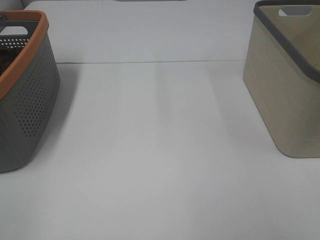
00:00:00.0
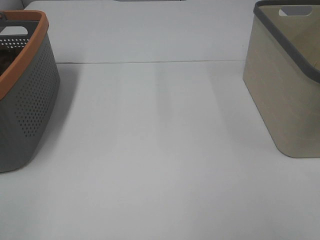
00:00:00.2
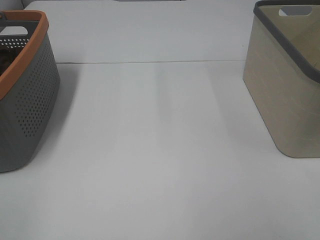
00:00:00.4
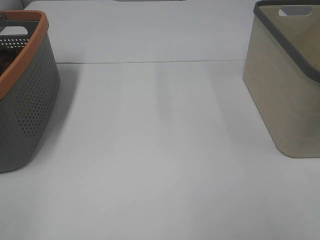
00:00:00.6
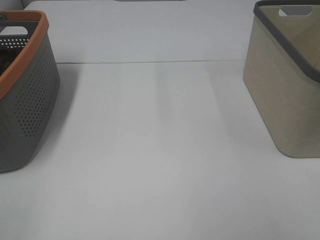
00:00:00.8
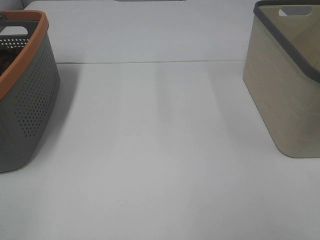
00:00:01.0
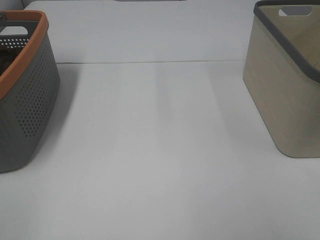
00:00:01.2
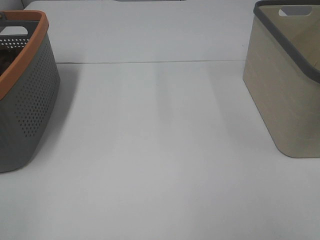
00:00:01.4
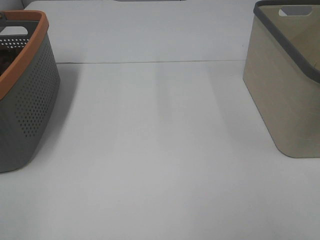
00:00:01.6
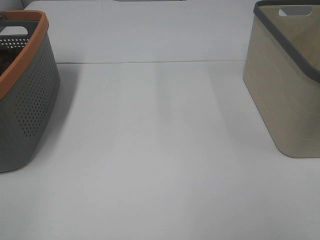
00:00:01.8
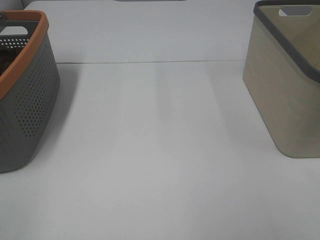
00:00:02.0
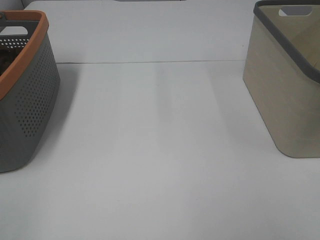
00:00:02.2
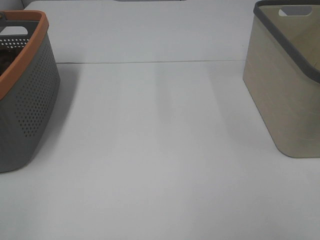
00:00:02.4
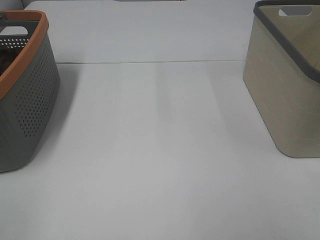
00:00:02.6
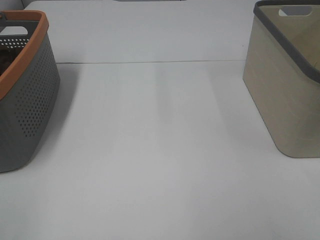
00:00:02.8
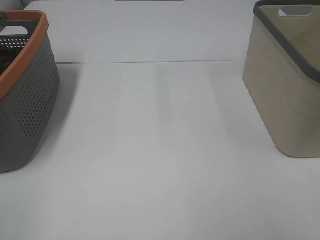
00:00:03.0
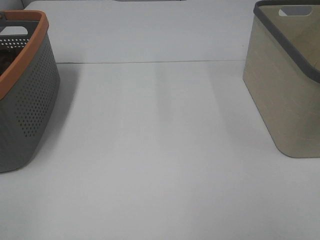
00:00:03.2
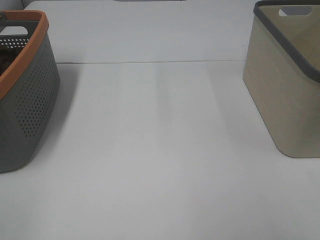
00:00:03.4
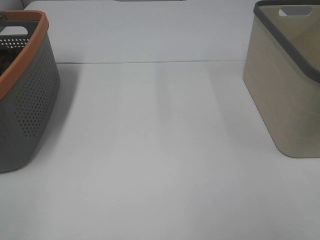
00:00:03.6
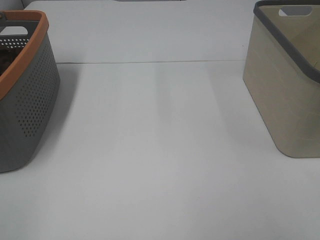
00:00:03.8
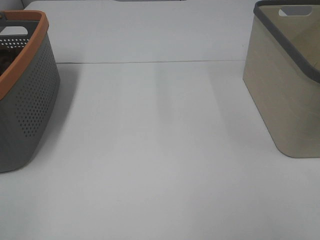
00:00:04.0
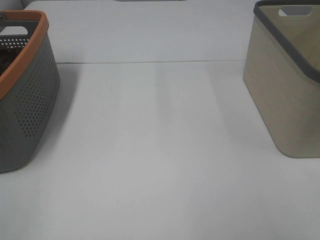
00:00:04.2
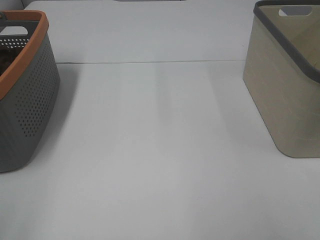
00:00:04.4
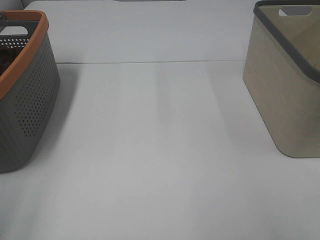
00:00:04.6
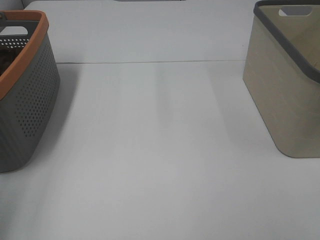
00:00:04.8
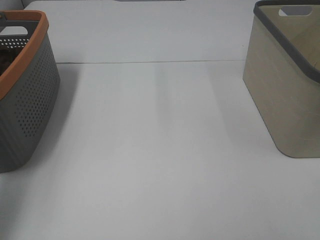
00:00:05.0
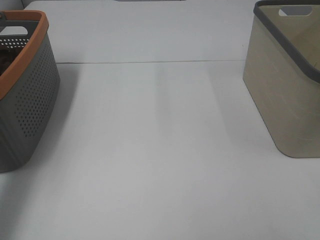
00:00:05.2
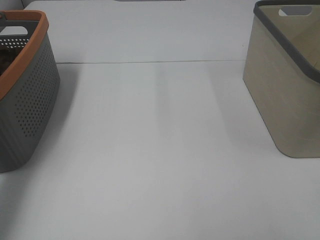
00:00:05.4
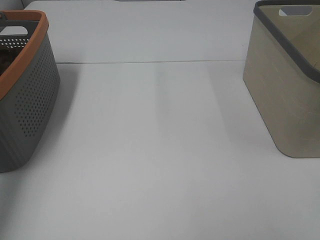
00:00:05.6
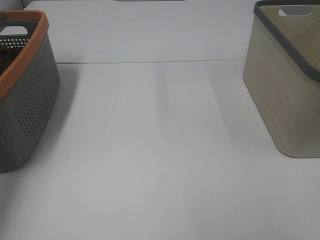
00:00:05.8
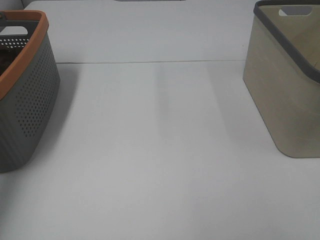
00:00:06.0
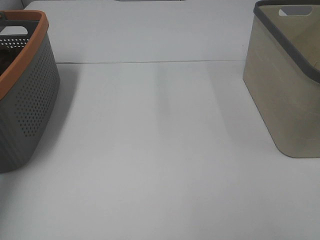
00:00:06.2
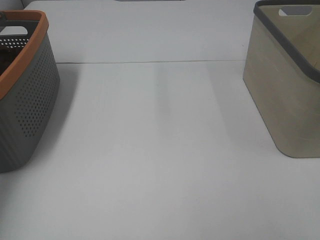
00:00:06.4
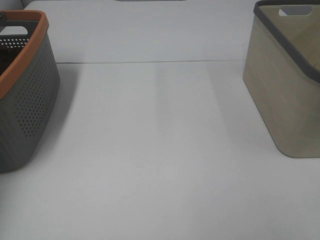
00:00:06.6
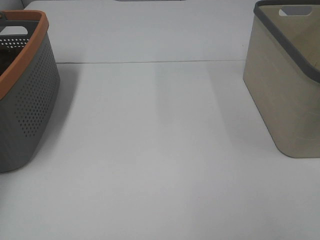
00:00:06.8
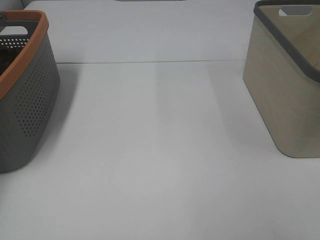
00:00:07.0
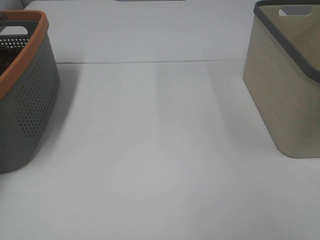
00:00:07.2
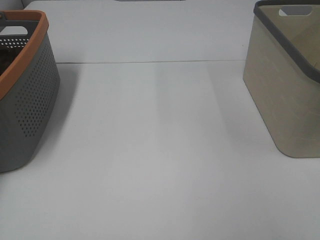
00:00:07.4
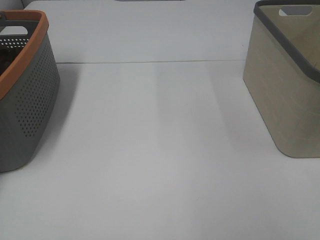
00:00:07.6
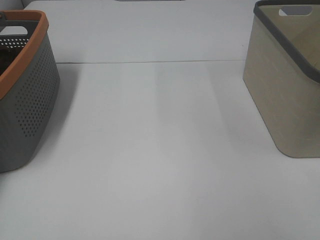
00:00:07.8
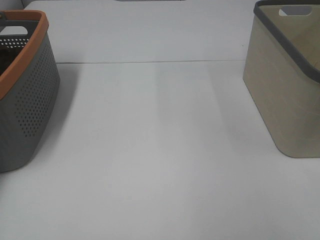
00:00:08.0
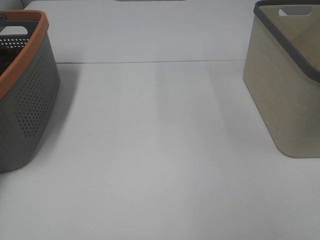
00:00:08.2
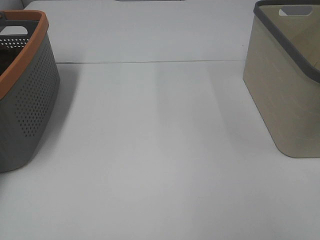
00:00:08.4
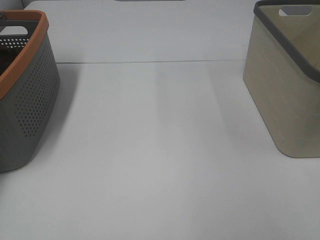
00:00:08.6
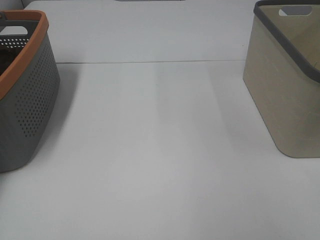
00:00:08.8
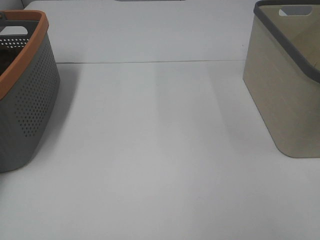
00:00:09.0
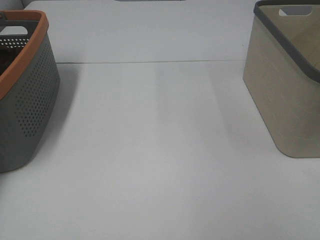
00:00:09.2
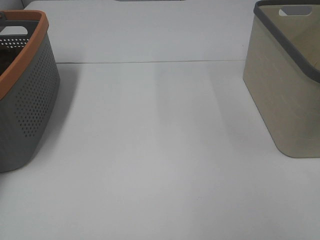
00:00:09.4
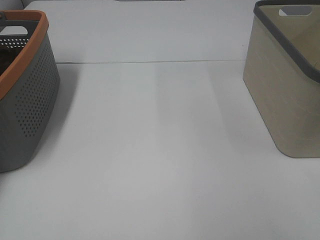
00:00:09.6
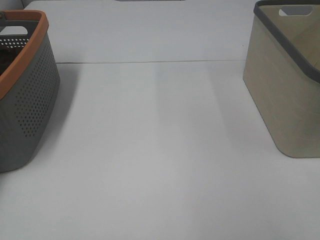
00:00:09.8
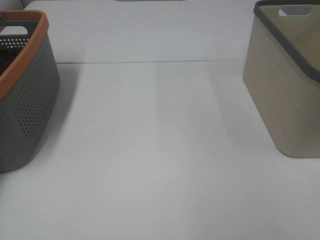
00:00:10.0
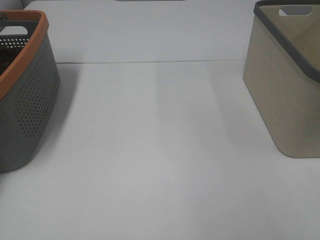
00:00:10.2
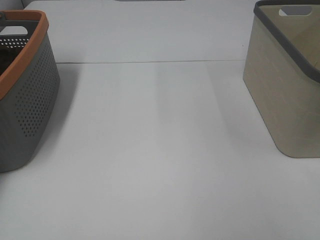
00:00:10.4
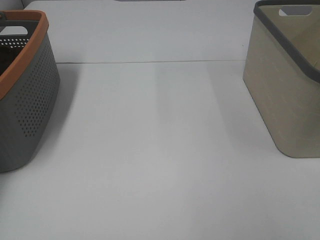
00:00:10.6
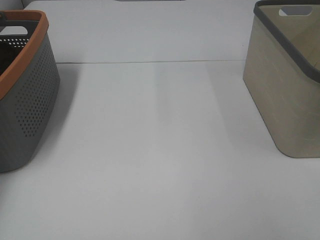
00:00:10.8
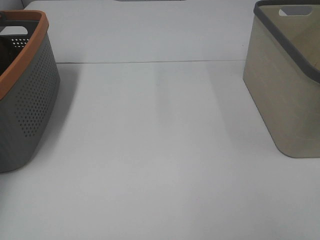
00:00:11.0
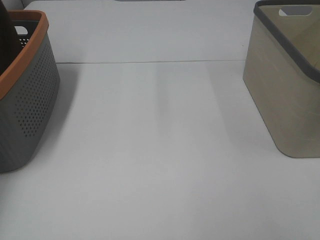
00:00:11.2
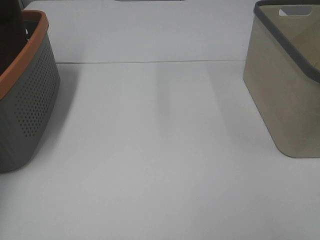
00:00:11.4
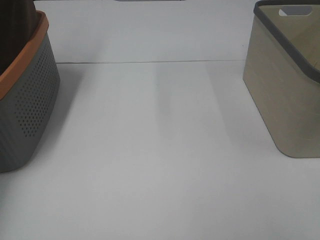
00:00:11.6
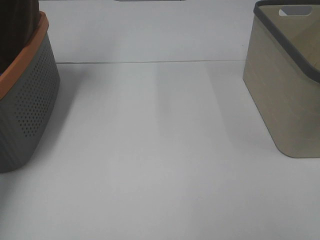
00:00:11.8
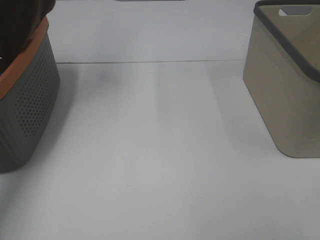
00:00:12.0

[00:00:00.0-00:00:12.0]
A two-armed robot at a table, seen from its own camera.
Task of the whole recording: Remove the towel and place it.
00:00:00.0 to 00:00:03.0: Both grippers stay about where they are.
00:00:04.4 to 00:00:06.0: The left gripper heads forward, covering roughly 30 cm.
00:00:06.0 to 00:00:07.6: The left gripper goes roughly 20 cm downward, forward and to the left.
00:00:10.4 to 00:00:12.0: The left gripper travels upward and to the right by approximately 35 cm.

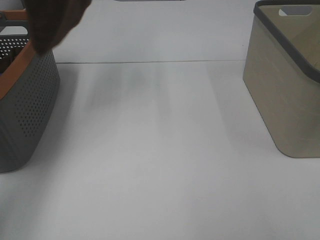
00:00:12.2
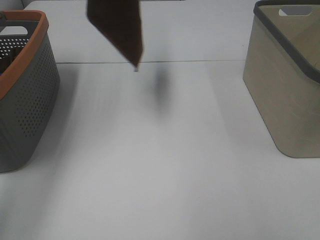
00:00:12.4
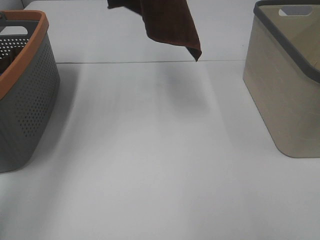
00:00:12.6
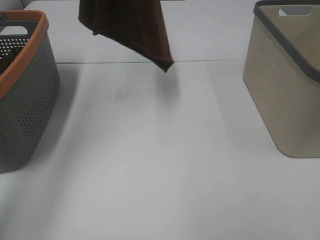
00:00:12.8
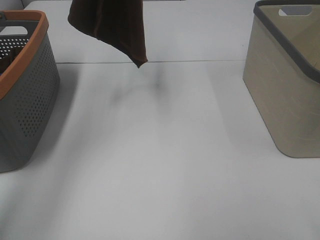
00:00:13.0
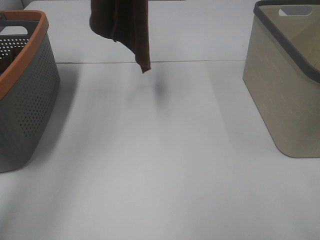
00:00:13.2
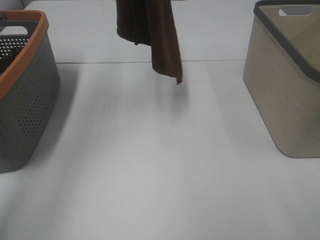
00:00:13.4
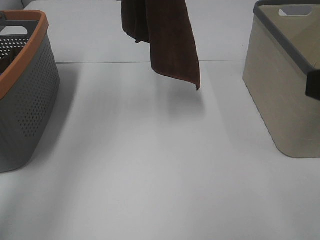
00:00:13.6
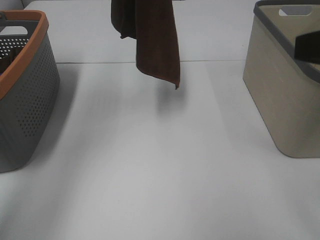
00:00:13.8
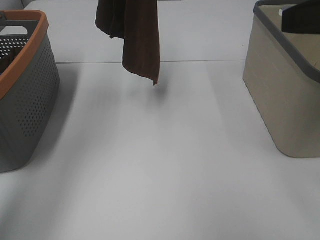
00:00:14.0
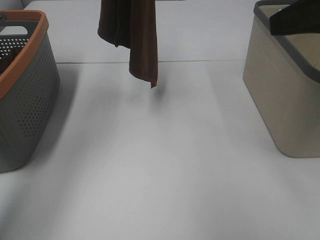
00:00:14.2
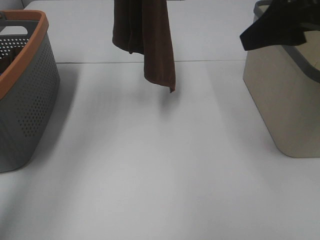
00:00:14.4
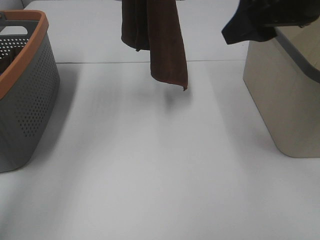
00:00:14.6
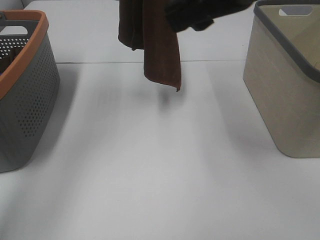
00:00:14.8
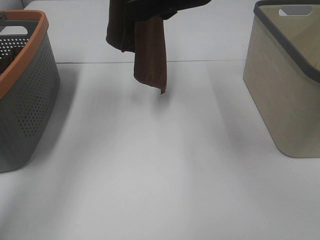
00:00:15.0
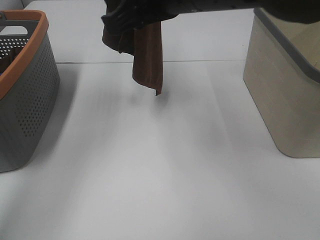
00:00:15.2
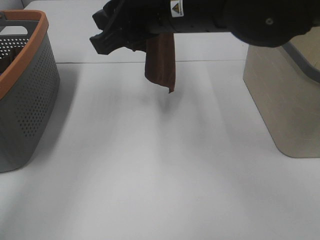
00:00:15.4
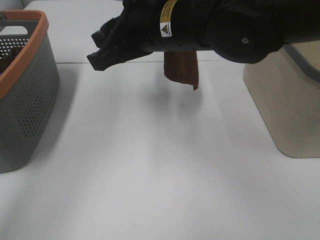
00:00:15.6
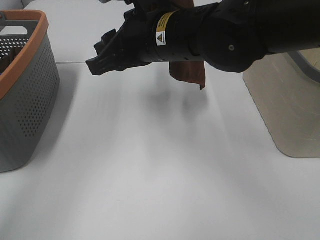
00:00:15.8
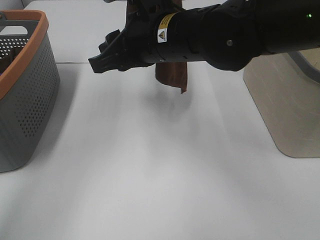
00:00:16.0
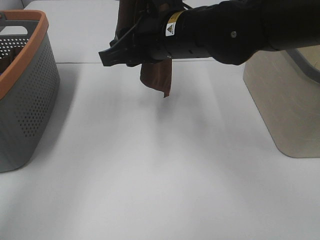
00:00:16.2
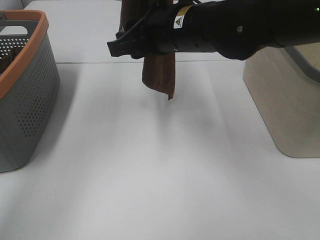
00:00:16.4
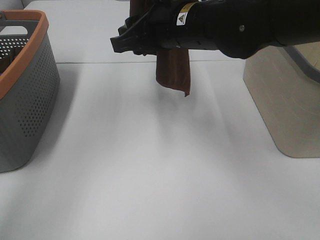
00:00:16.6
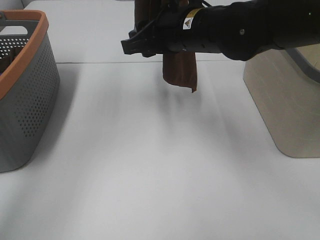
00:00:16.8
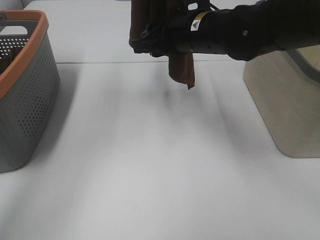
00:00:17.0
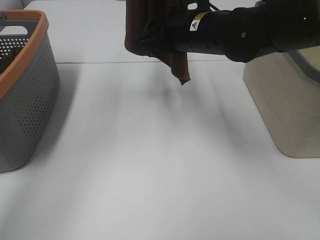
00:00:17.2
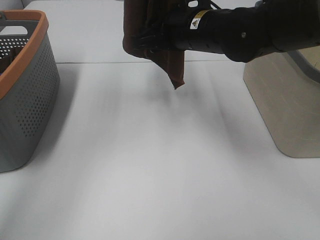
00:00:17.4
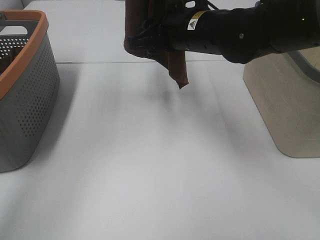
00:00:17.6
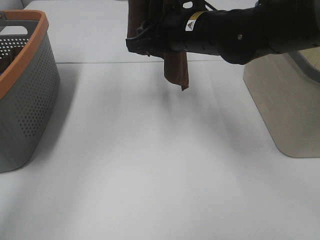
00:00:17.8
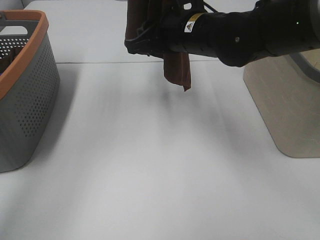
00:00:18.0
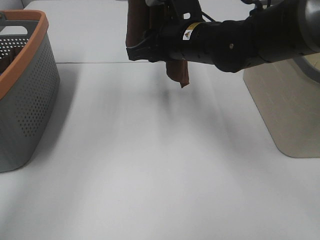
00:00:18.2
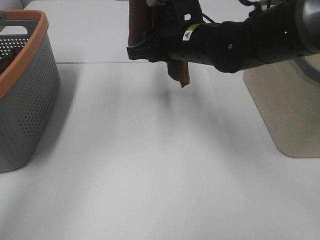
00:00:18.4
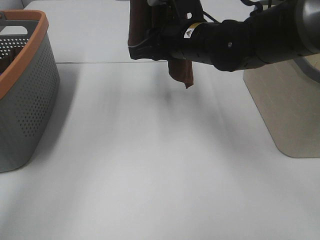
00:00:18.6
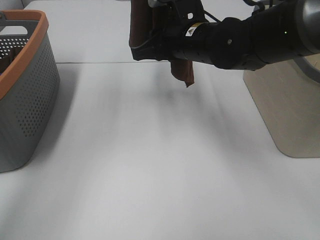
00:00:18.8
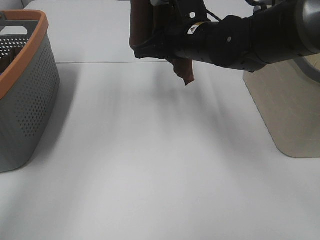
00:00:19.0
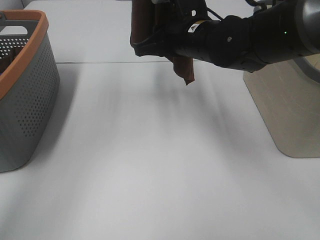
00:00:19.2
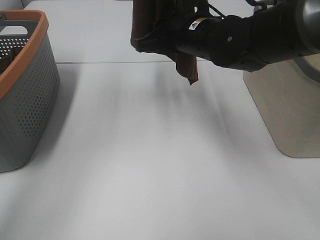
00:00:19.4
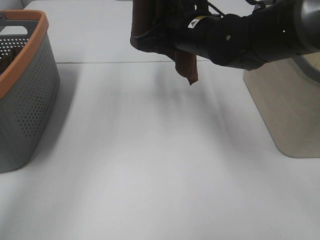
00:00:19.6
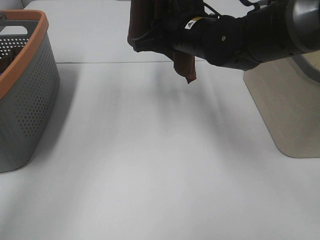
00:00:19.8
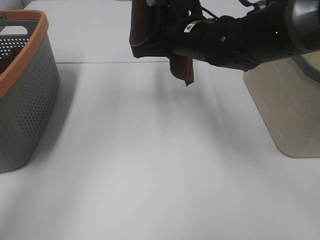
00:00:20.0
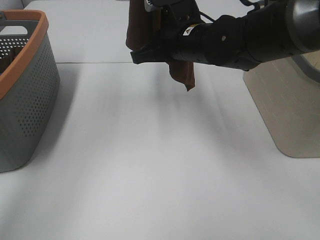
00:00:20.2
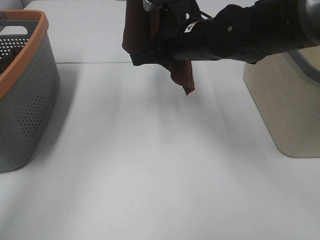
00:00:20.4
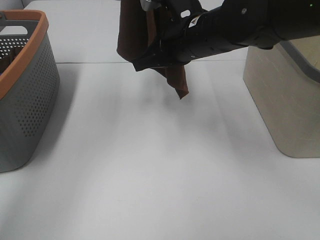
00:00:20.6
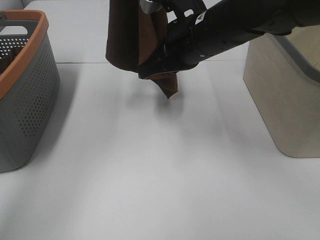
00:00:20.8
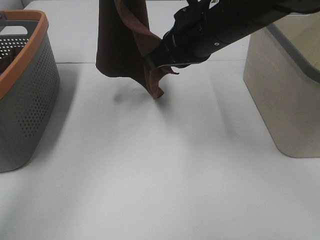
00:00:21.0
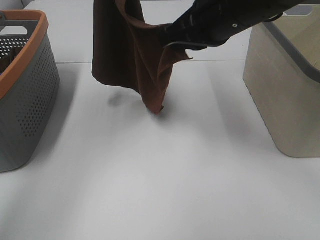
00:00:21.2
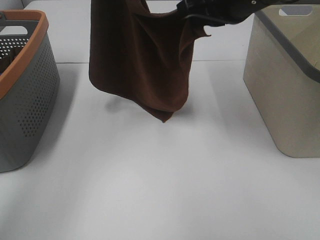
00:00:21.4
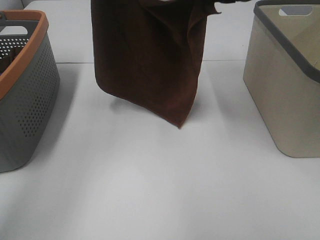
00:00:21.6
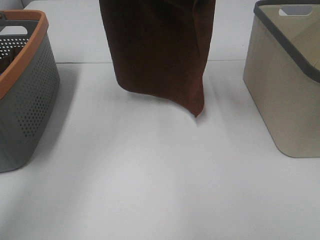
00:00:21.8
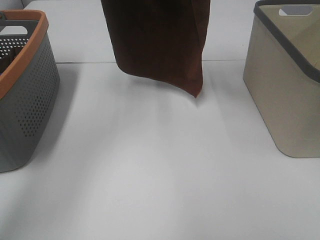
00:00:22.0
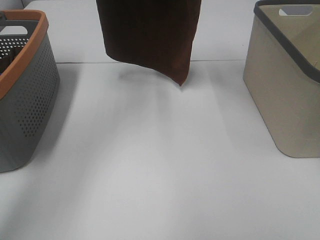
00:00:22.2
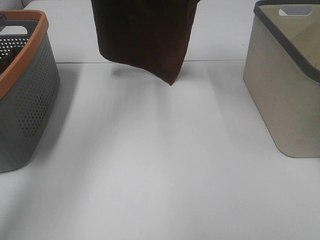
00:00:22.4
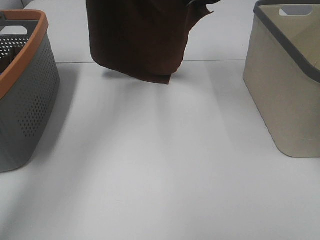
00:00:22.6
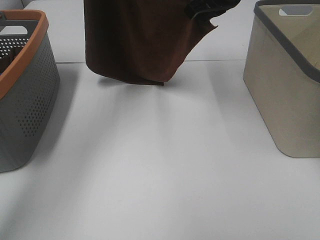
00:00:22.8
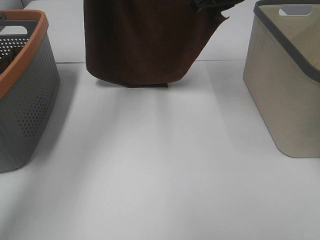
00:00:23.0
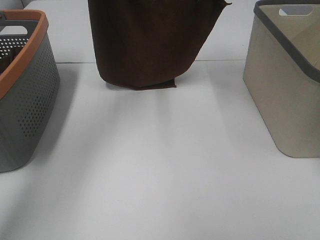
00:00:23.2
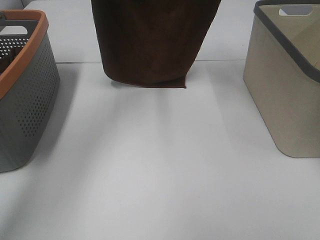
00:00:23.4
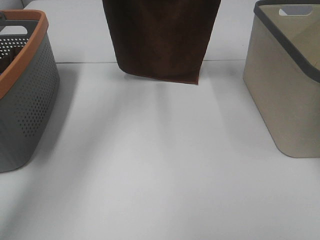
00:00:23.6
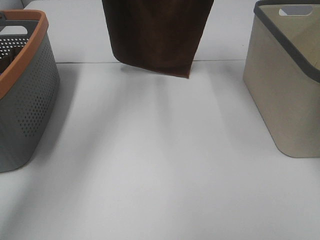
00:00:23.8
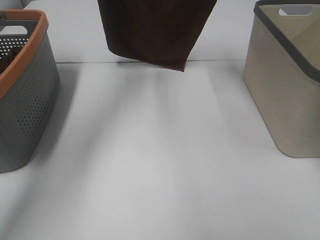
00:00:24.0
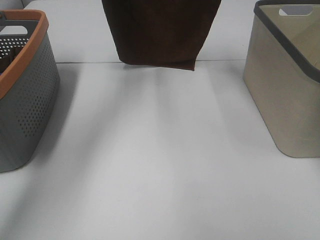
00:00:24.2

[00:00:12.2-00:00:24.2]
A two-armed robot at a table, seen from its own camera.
Task of the whole recording: Remove the towel and place it.
Step, 00:00:12.2 to 00:00:17.8: Right hand: grab a corner of the brown towel and straighten it.
Step, 00:00:18.0 to 00:00:22.8: Left hand: spread the brown towel flat on the table.
Step, 00:00:18.0 to 00:00:22.8: Right hand: spread the brown towel flat on the table.
00:00:12.2 to 00:00:13.8: The left gripper travels to the right by roughly 10 cm. The right gripper shifts roughly 15 cm forward.
00:00:13.8 to 00:00:15.2: The right gripper shifts approximately 25 cm to the left and forward.
00:00:15.2 to 00:00:16.6: The right gripper goes some 10 cm downward and forward.
00:00:16.6 to 00:00:18.2: The right gripper moves about 5 cm.
00:00:18.2 to 00:00:19.8: The grippers stay close to where they were, moving slightly.
00:00:19.8 to 00:00:21.2: The right gripper goes roughly 10 cm upward and backward, and closes up.
00:00:21.2 to 00:00:22.6: The right gripper travels forward by about 15 cm. Meanwhile the left gripper heads forward, covering some 10 cm.
00:00:22.6 to 00:00:24.2: The right gripper heads forward, covering some 5 cm, while the left gripper shifts by some 5 cm.
